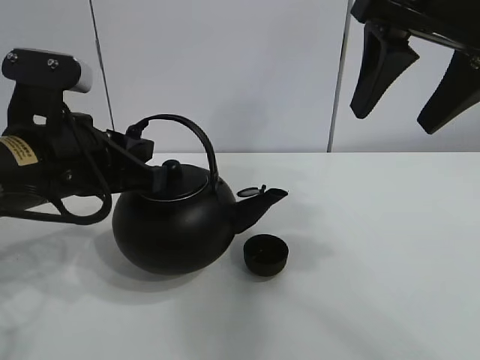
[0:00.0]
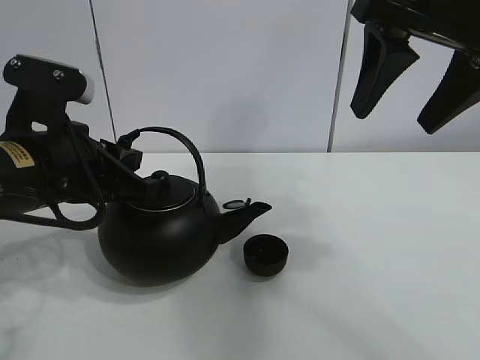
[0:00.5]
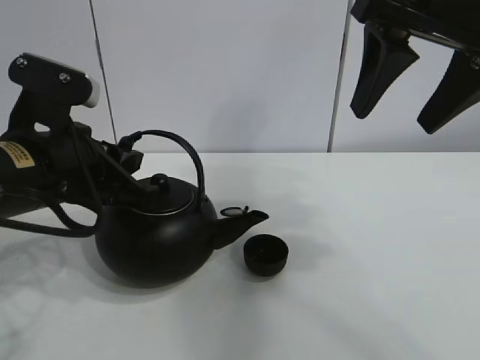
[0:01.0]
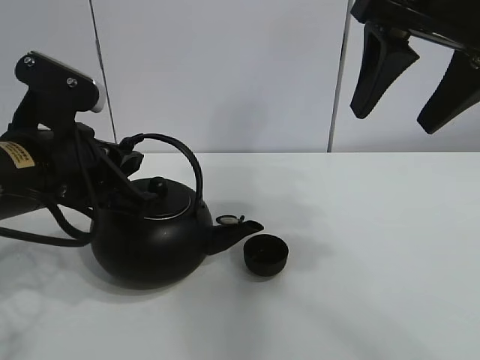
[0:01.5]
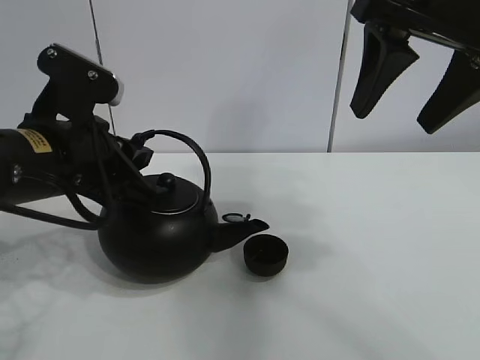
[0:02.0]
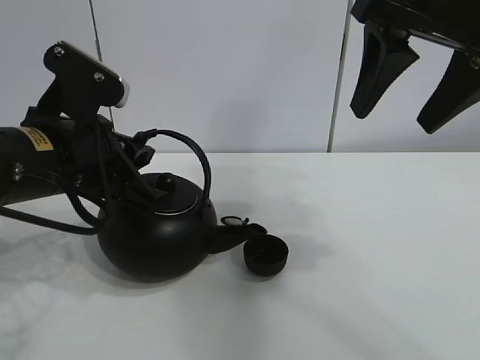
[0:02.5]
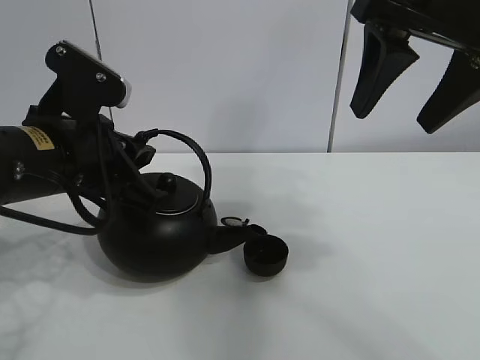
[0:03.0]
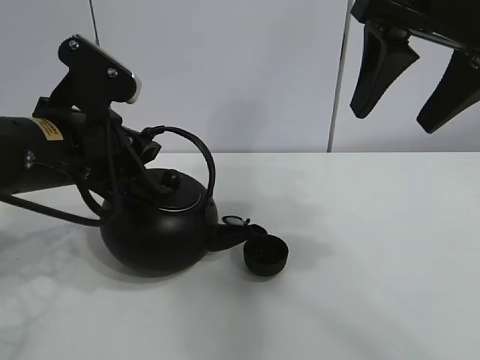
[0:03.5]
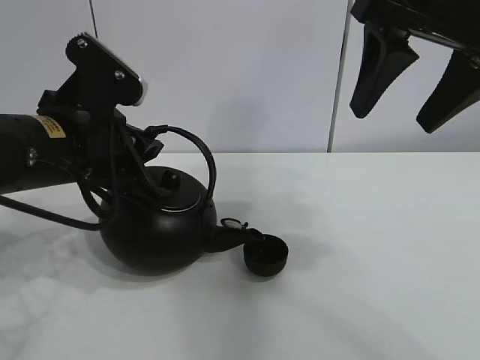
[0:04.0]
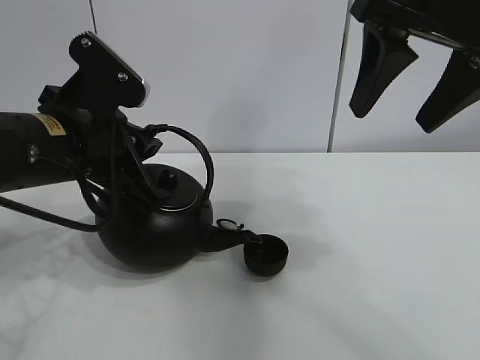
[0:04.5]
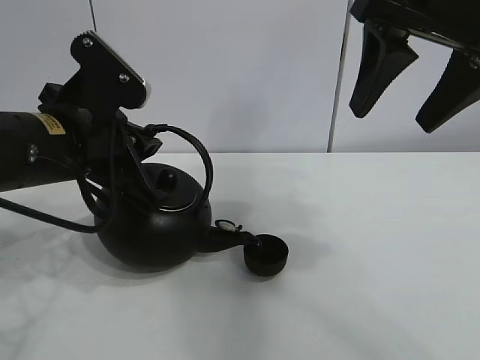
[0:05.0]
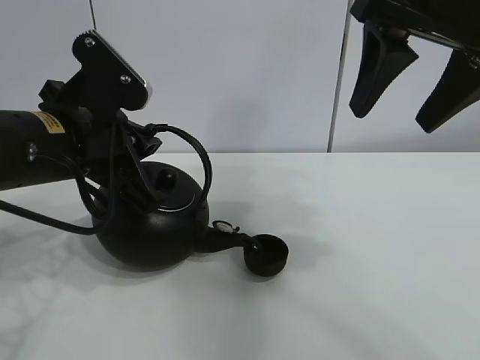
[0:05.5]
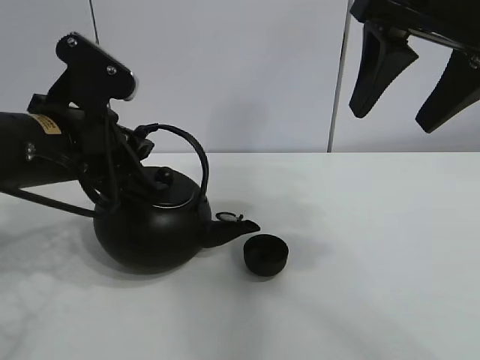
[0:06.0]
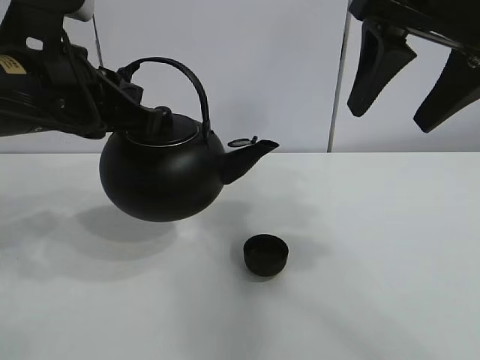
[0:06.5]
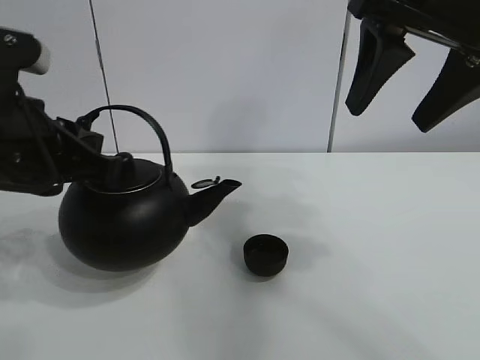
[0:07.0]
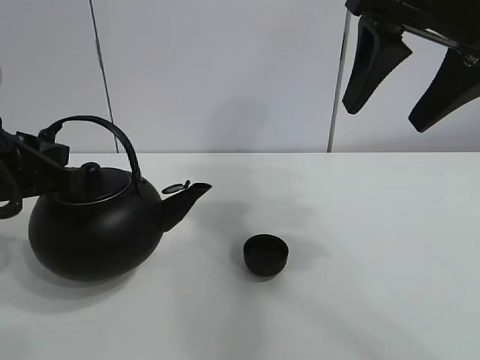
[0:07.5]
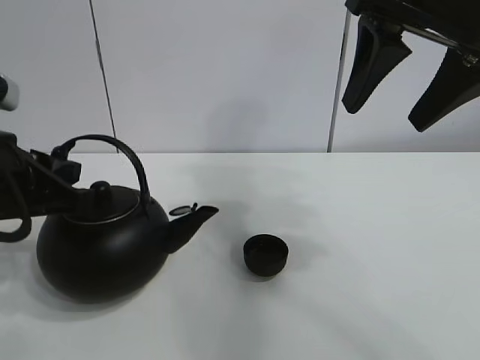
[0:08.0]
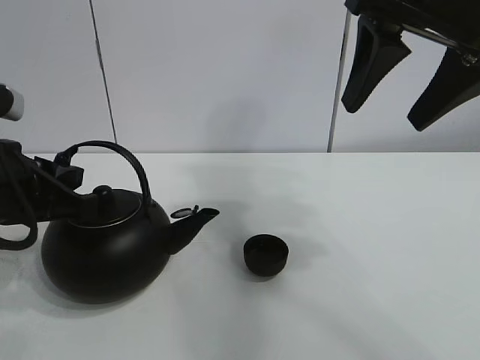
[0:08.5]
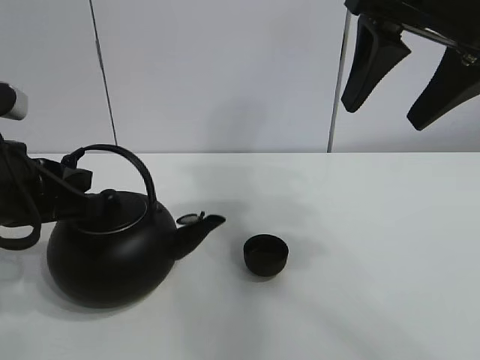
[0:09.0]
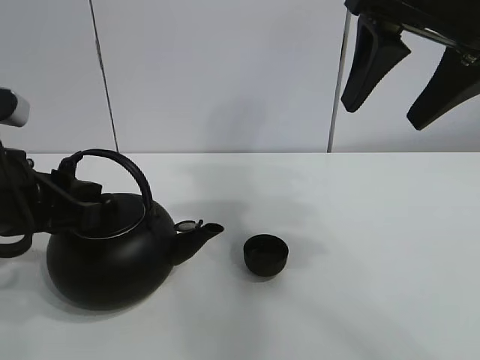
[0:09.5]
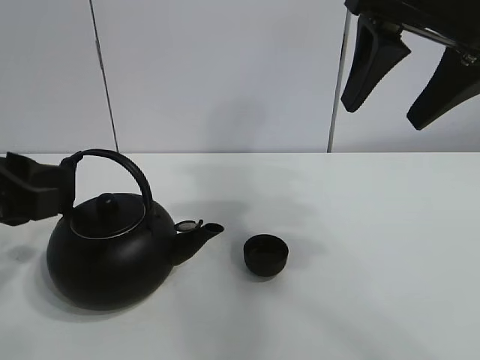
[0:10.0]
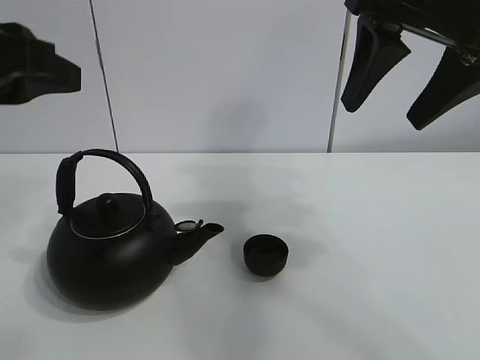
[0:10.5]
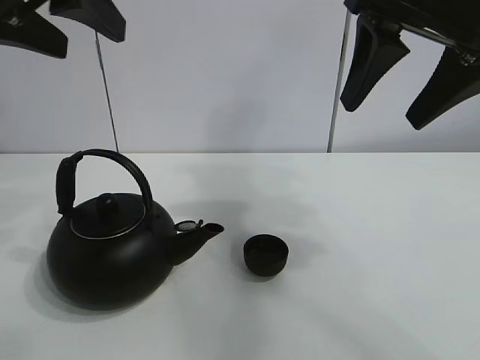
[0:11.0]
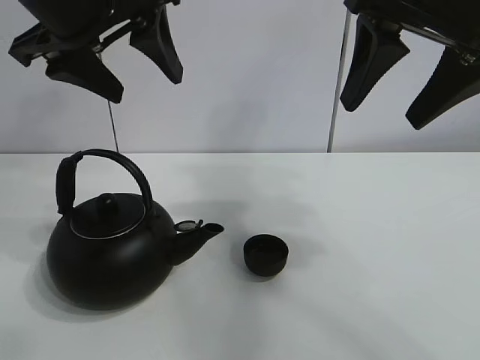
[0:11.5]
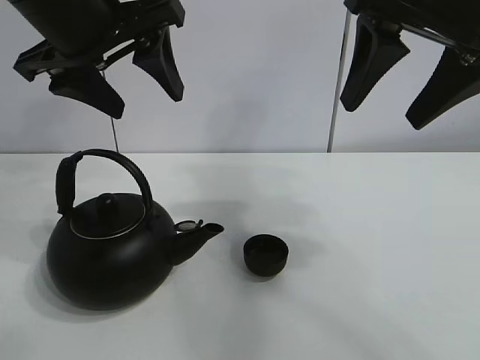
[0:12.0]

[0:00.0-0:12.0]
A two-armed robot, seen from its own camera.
Task of the whole recording: pour tea into the teacup.
Step, 0:00.0 to 0:06.0: Pour tea into the teacup with the left gripper.
0:00.0 to 0:02.0: There are only small adjustments of the grippers.
0:02.0 to 0:06.0: The grippers stay close to where they were, moving slightly.
0:06.0 to 0:08.0: The left gripper is displaced to the left by some 5 cm.
0:08.0 to 0:10.0: The left gripper opens.
0:10.0 to 0:12.0: The left gripper goes about 20 cm upward, forward and to the right, and opens up.
